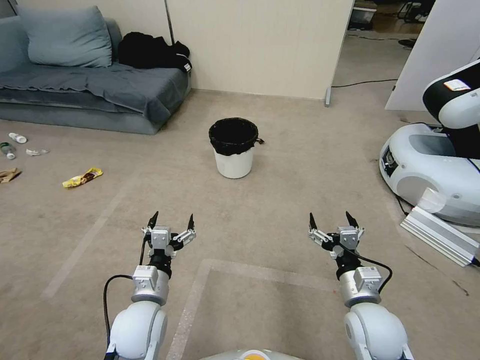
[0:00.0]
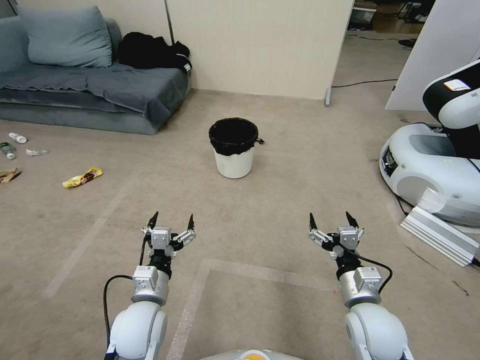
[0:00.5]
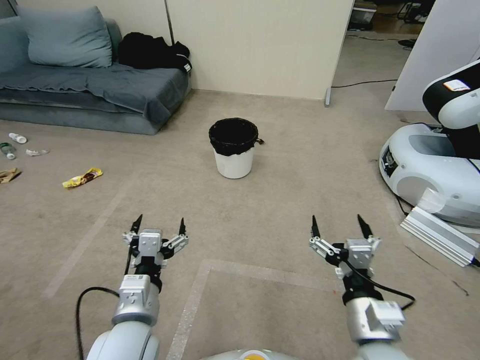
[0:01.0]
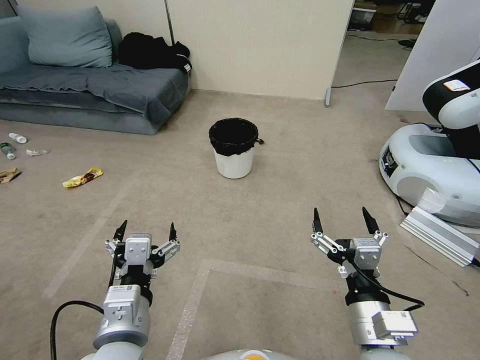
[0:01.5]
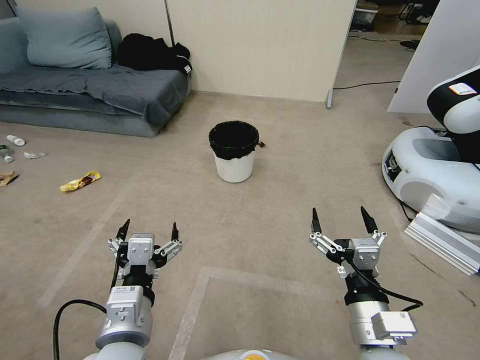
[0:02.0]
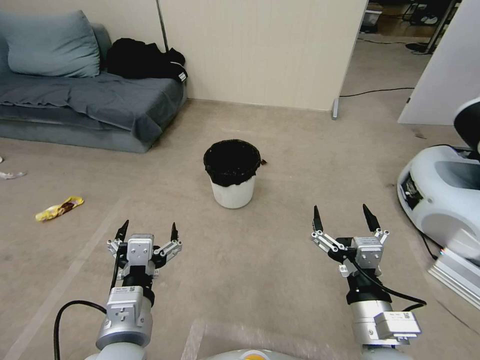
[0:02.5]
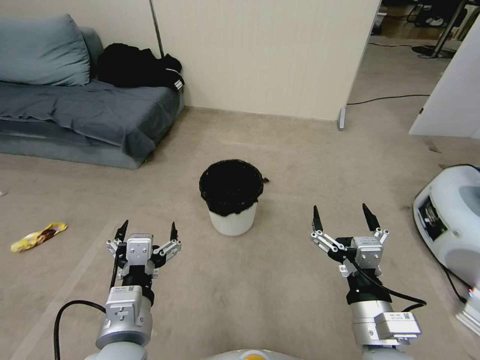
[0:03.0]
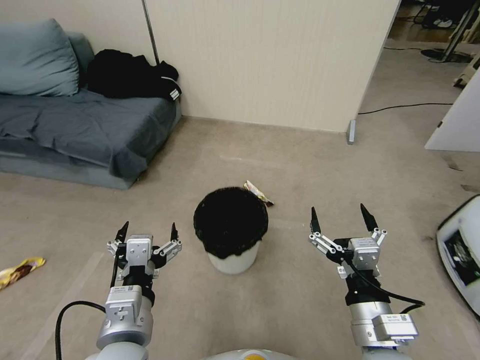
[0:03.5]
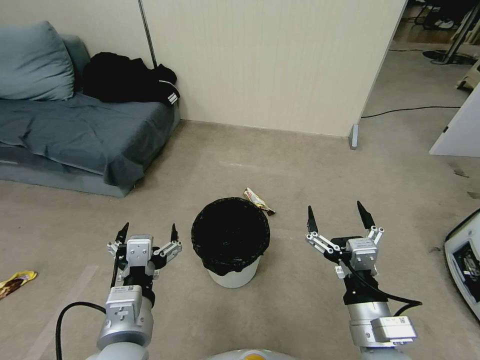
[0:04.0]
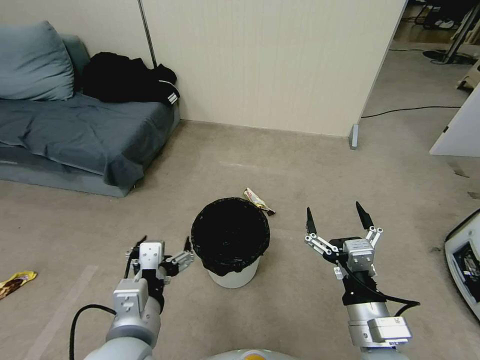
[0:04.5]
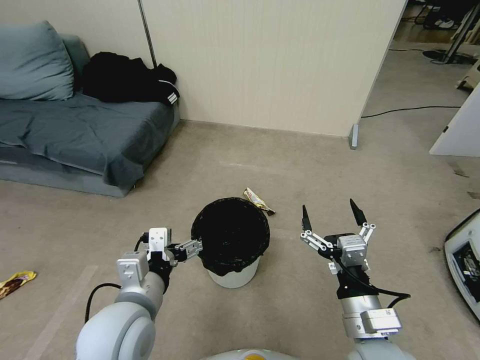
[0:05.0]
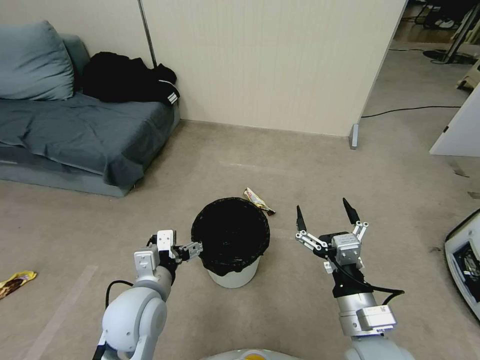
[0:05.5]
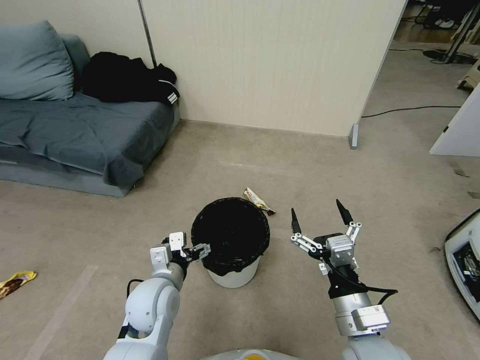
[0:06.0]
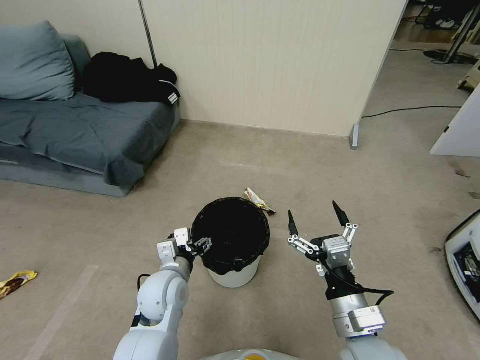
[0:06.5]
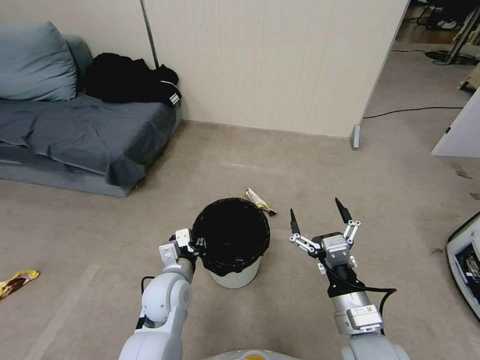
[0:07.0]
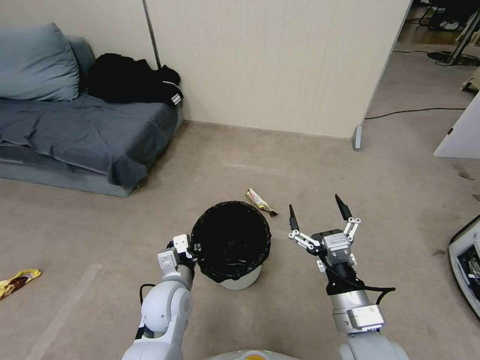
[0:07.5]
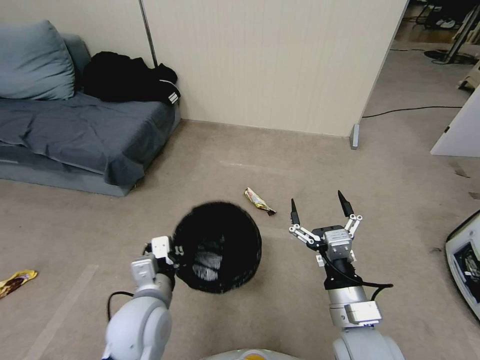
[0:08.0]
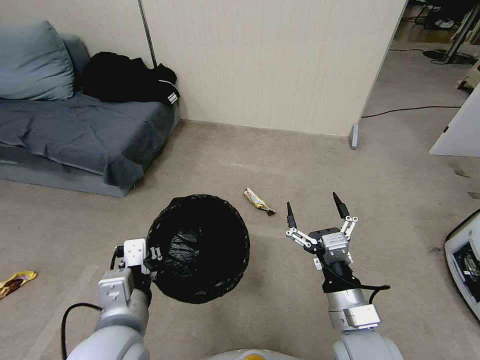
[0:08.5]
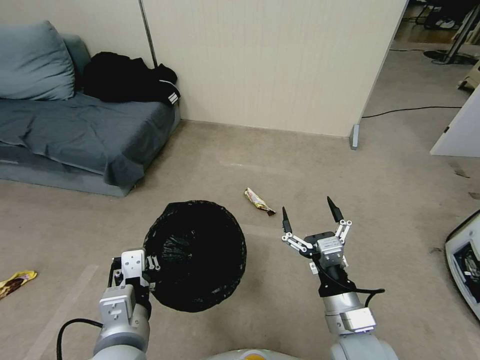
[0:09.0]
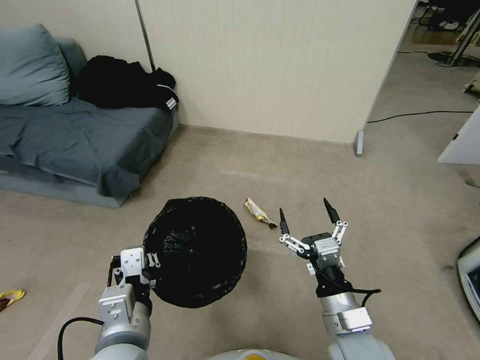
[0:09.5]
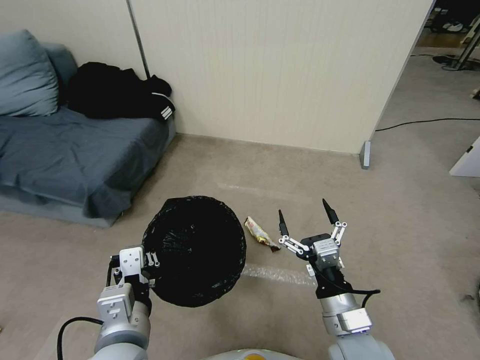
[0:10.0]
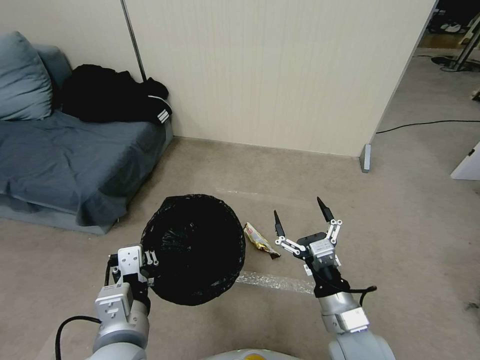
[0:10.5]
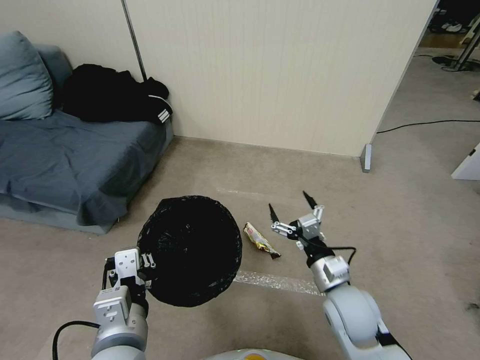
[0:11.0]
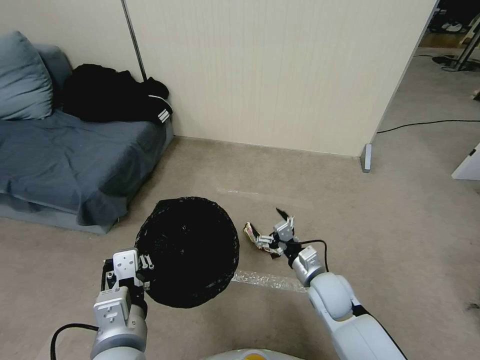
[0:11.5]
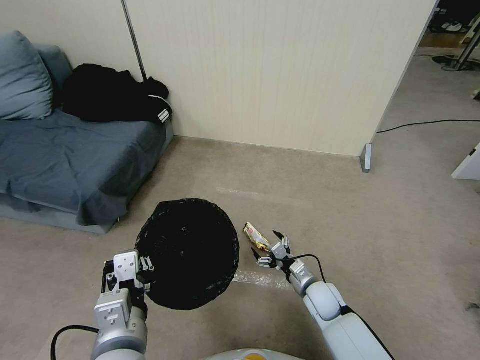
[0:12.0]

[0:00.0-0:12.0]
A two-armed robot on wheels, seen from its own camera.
Task of the whole recording: Pick up the trash bin, then pick up the garbage from the floor and place it into the trash bin.
0:04.0 to 0:06.0: The left gripper moves forward and downward, approximately 15 cm.
0:06.0 to 0:08.0: The left gripper changes place by roughly 5 cm, and closes its fingers.
0:08.0 to 0:10.0: The left gripper moves backward and upward, roughly 10 cm.
0:10.0 to 0:12.0: The right gripper is displaced downward and forward by some 25 cm.

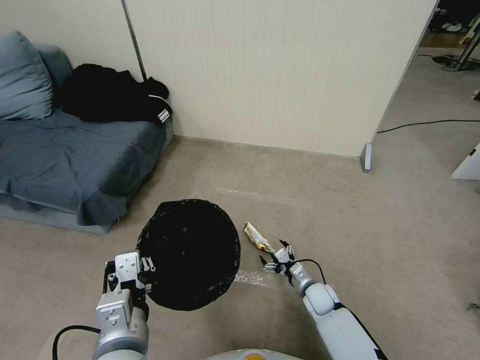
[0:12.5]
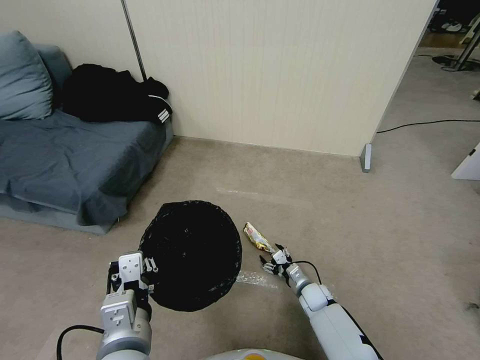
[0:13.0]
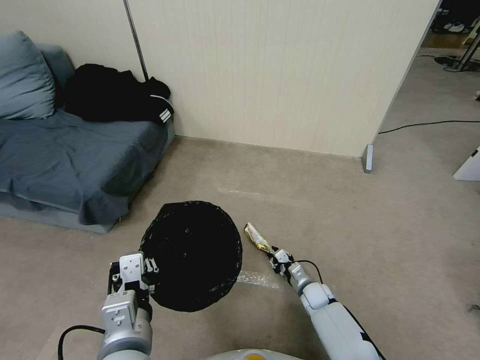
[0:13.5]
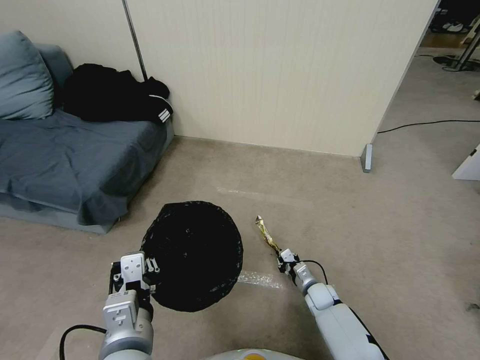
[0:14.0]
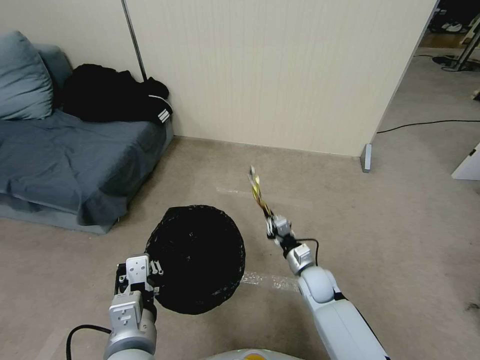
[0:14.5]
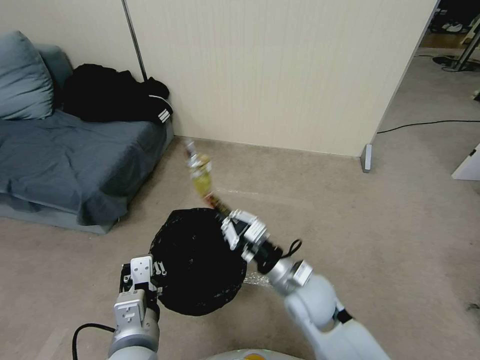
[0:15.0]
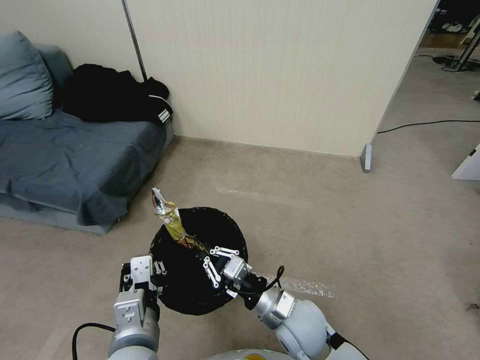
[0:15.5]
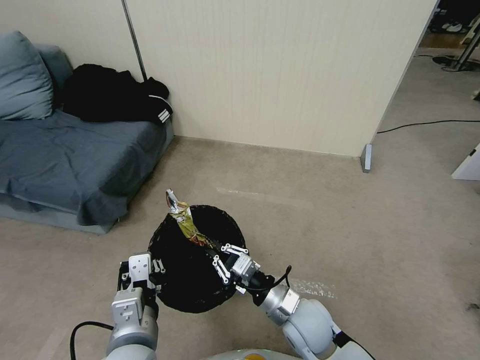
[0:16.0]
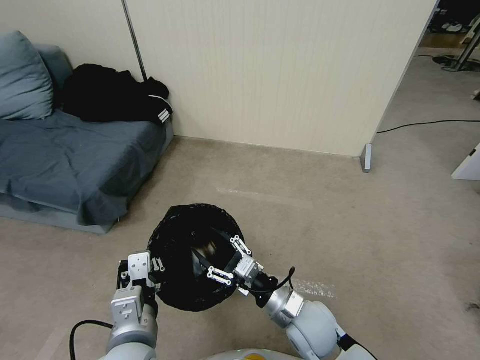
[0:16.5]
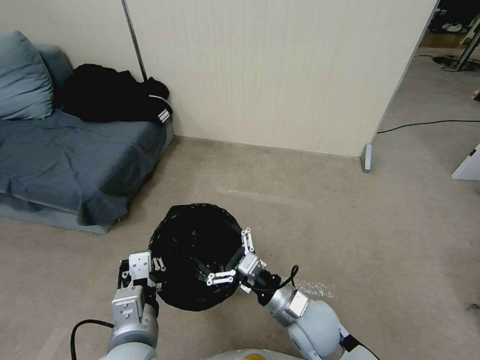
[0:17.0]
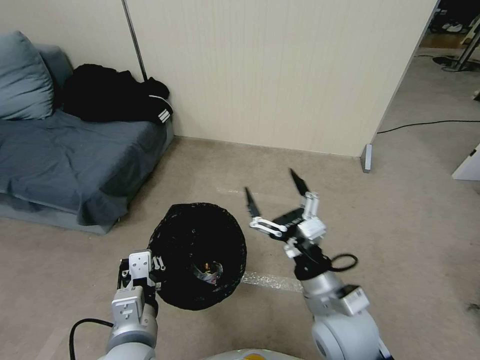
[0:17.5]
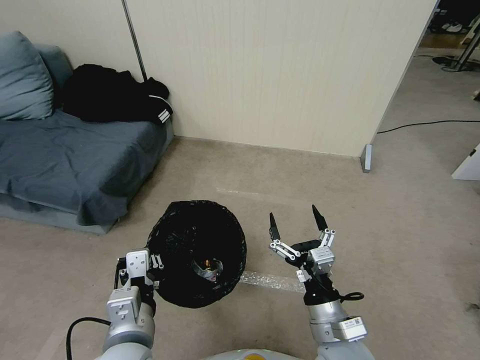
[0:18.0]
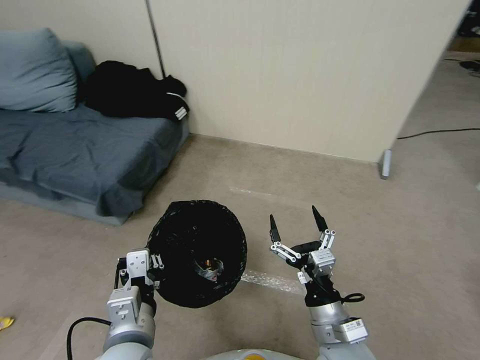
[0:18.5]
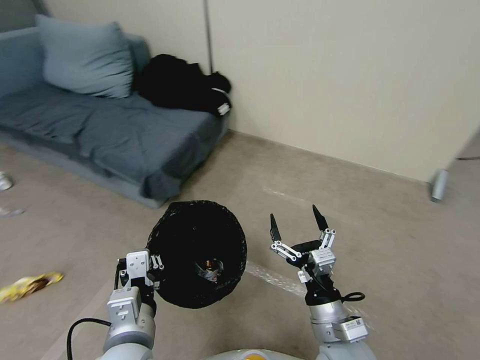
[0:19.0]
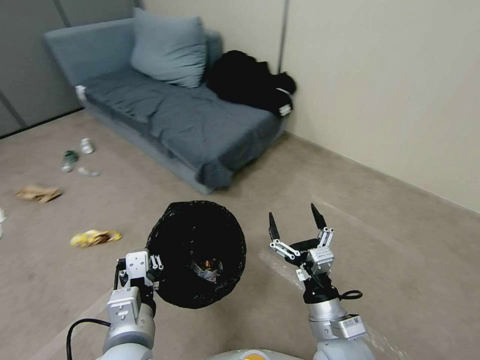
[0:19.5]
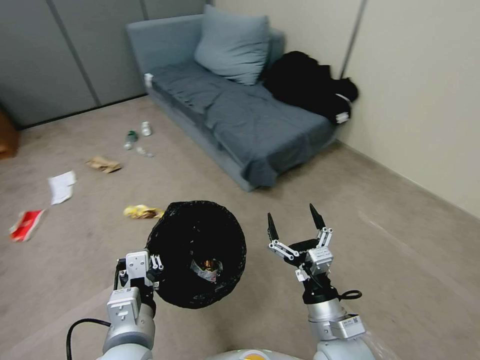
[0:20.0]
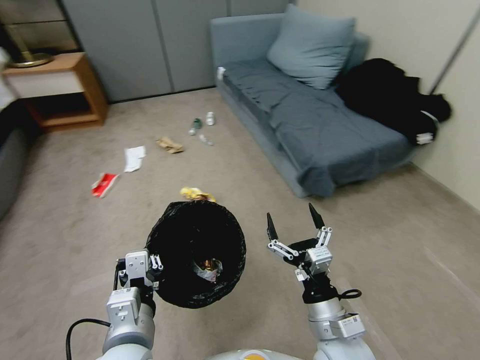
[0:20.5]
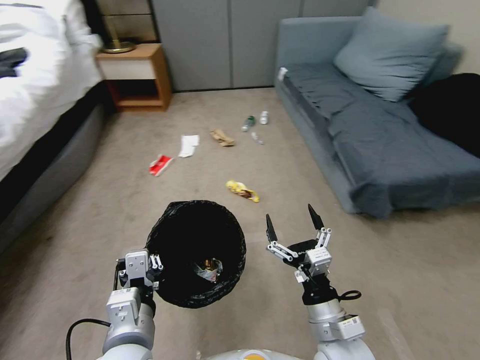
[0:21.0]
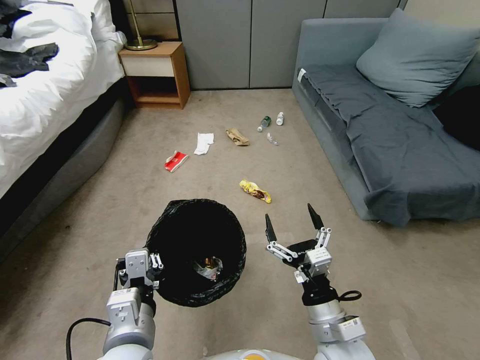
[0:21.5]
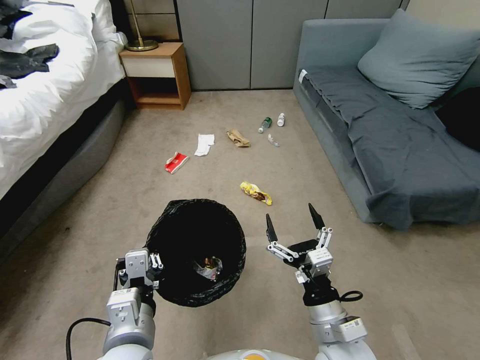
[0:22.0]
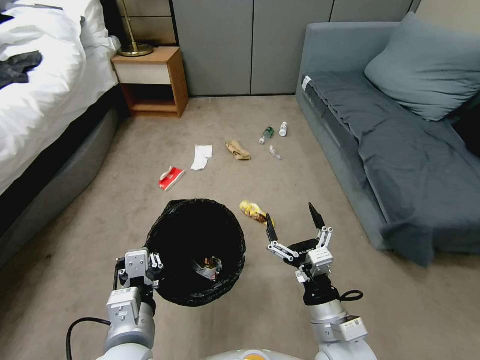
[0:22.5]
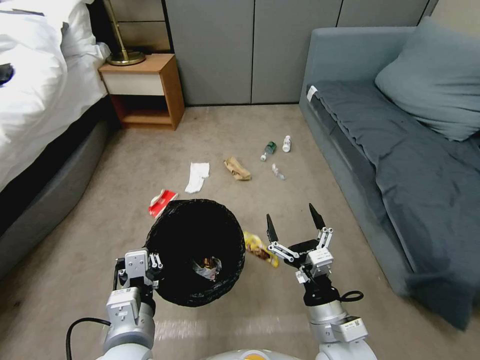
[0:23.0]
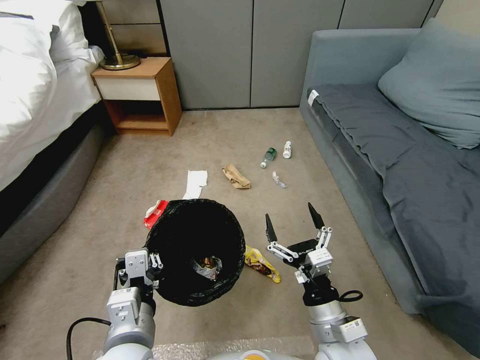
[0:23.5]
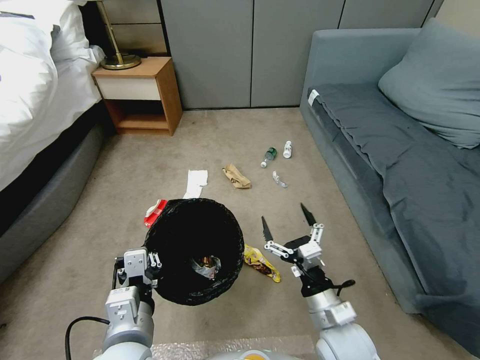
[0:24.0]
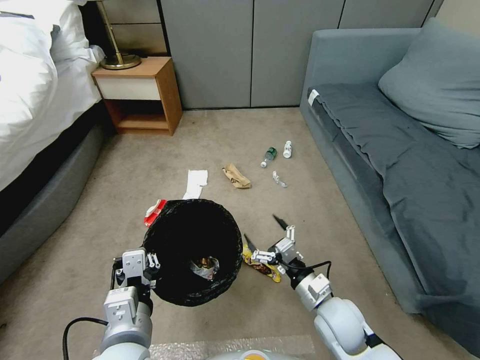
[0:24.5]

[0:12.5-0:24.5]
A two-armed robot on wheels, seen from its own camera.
Task of the whole recording: Pick up the trash bin, then pick up the garbage from the floor and place it into the trash bin.
0:12.5 to 0:14.5: The right gripper goes approximately 10 cm upward, and closes its fingers.
0:14.5 to 0:16.5: The right gripper moves backward, upward and to the left, some 20 cm, and opens.
0:16.5 to 0:18.5: The right gripper goes about 5 cm backward, and opens its fingers.
0:22.5 to 0:24.5: The right gripper moves forward and downward, approximately 10 cm.

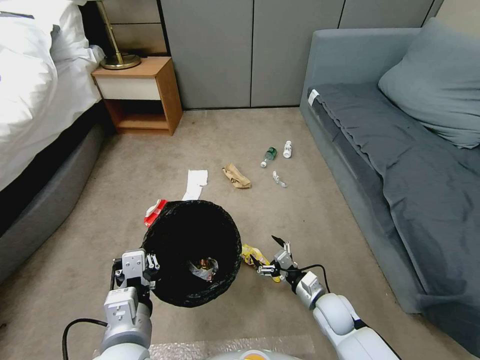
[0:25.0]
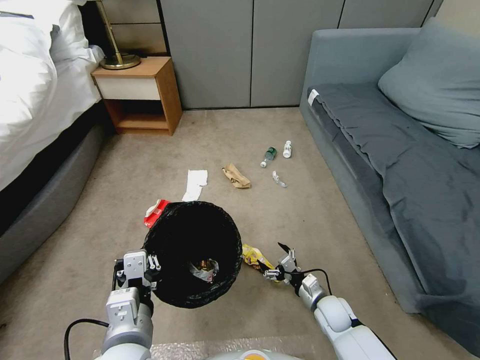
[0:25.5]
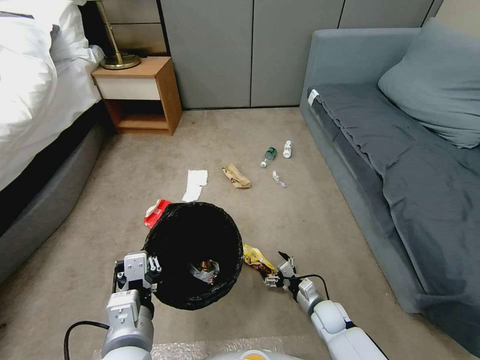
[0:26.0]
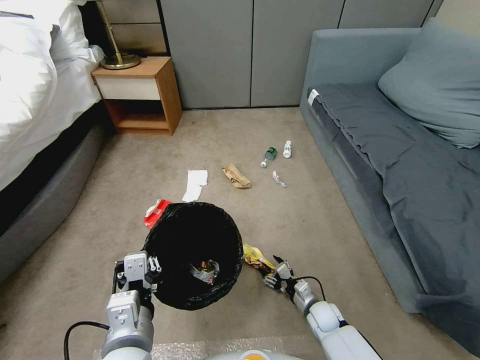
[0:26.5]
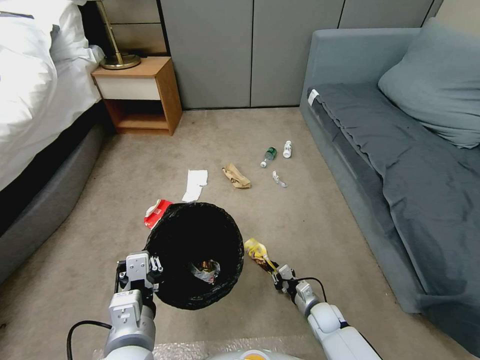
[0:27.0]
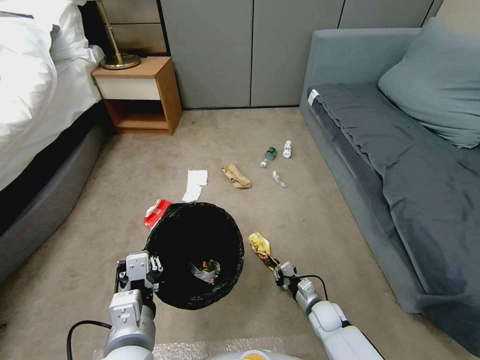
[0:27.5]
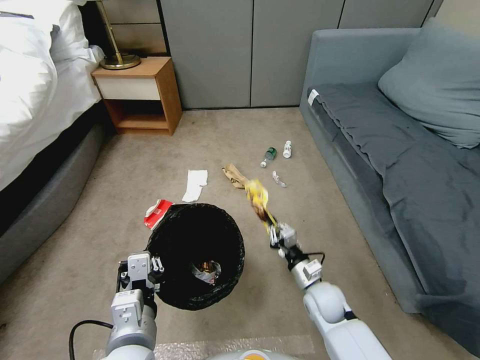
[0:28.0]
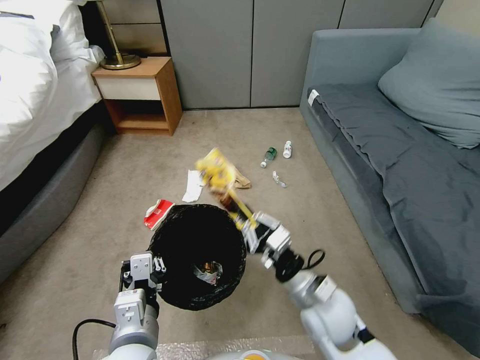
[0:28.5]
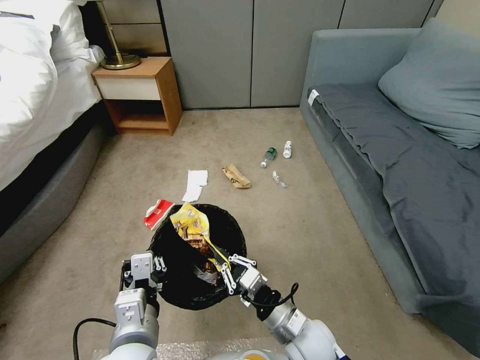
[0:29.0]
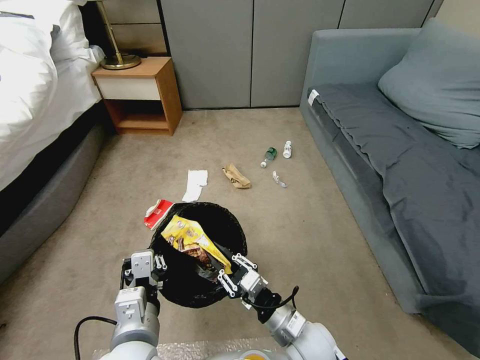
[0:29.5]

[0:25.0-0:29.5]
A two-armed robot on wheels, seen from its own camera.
Task of the whole recording: Pick up the trash bin, then pick up the garbage from the floor and place it into the trash bin.
0:25.0 to 0:27.0: The right gripper shifts about 10 cm downward, and closes.
0:27.0 to 0:29.5: The right gripper moves upward, to the left and backward, roughly 25 cm.
